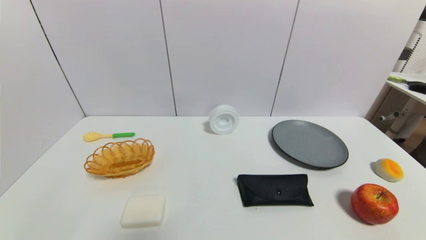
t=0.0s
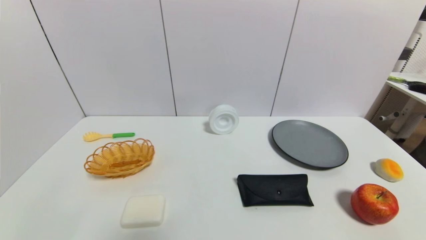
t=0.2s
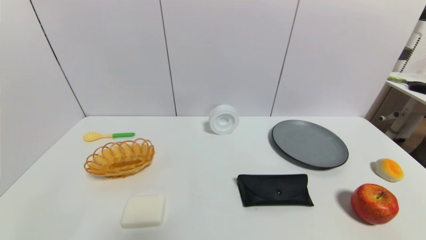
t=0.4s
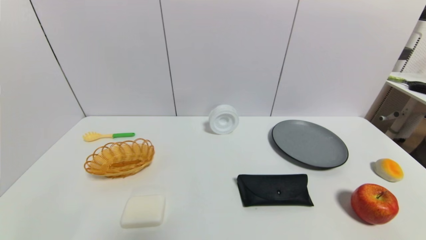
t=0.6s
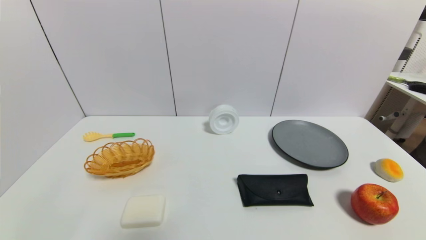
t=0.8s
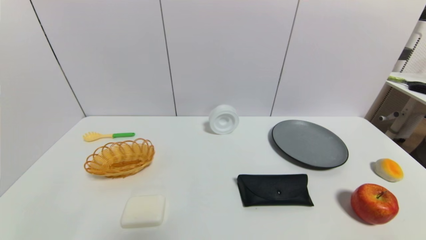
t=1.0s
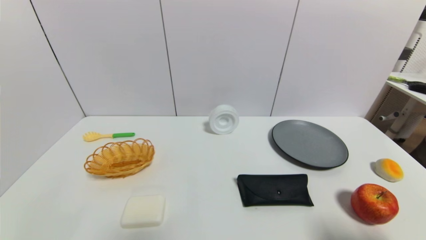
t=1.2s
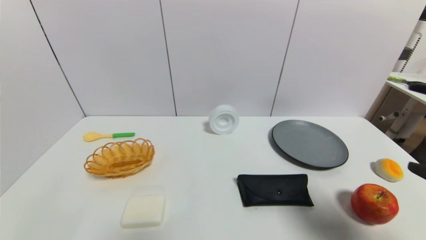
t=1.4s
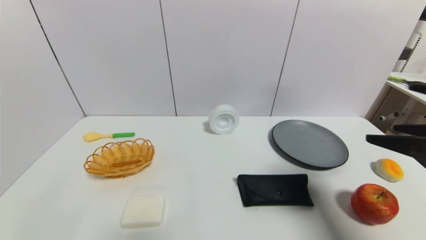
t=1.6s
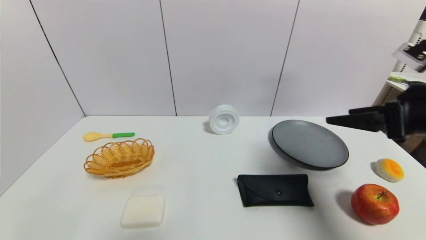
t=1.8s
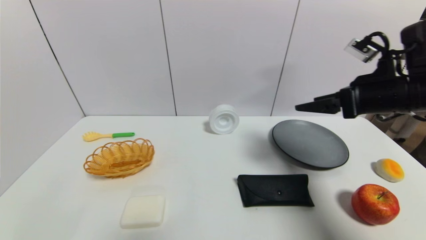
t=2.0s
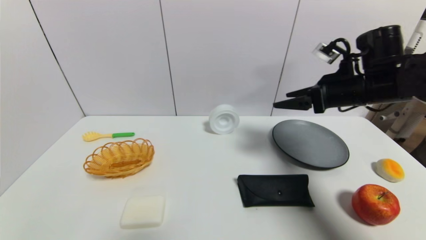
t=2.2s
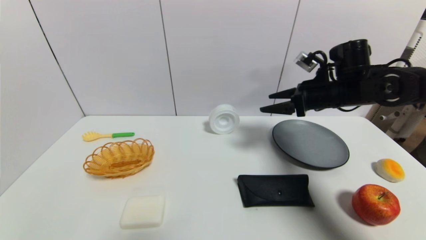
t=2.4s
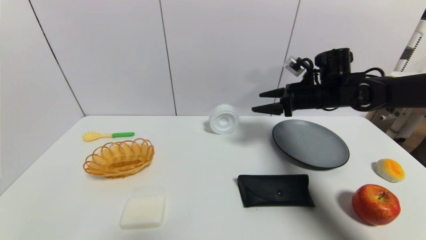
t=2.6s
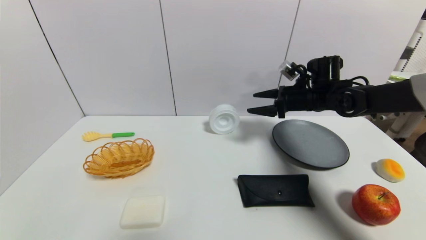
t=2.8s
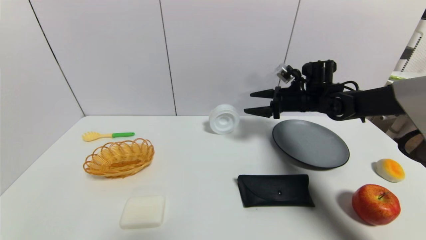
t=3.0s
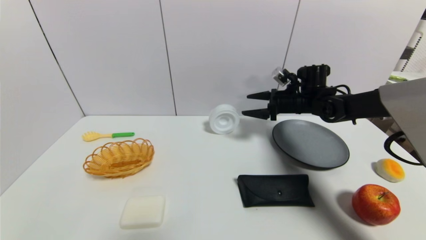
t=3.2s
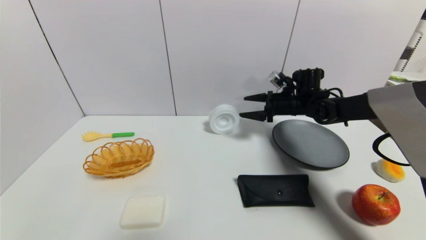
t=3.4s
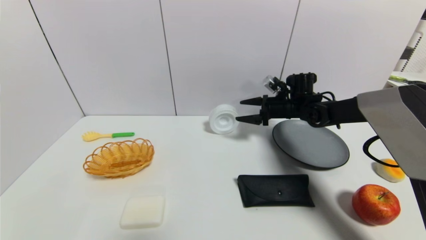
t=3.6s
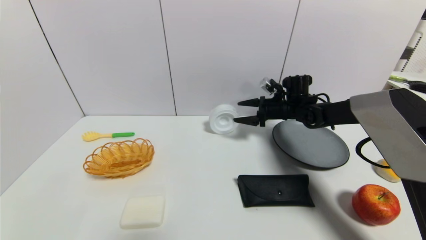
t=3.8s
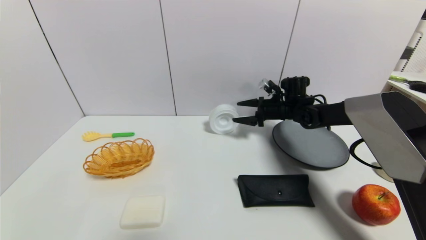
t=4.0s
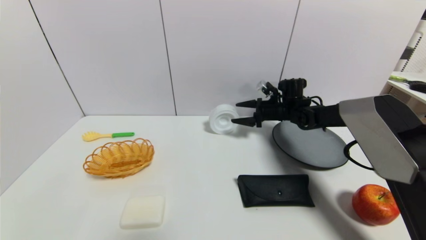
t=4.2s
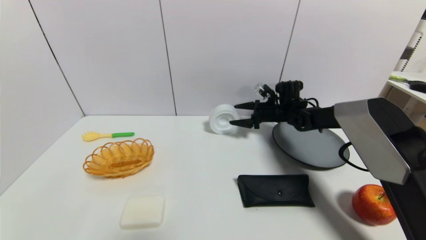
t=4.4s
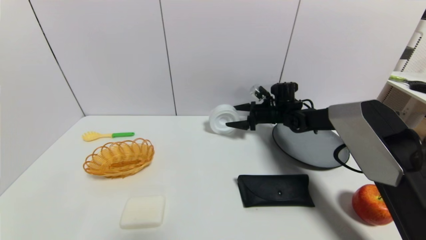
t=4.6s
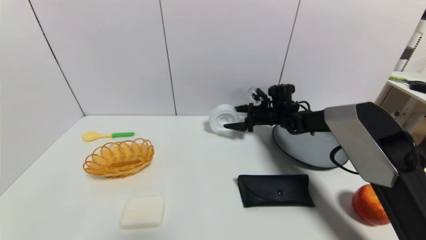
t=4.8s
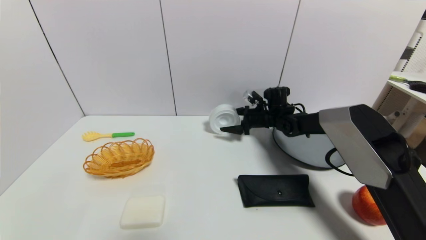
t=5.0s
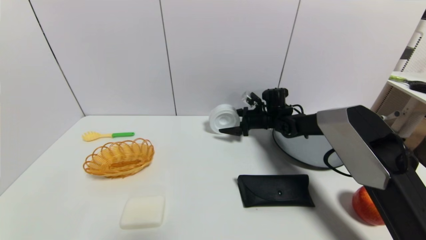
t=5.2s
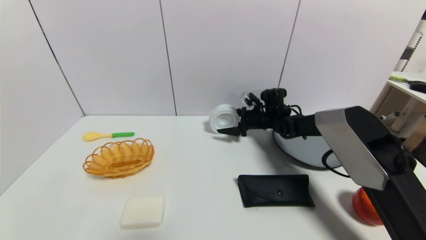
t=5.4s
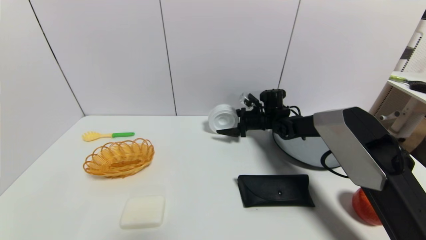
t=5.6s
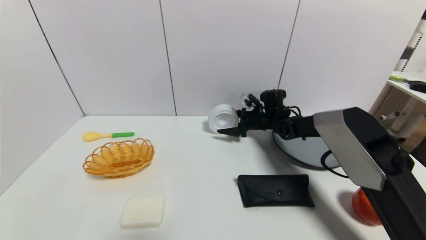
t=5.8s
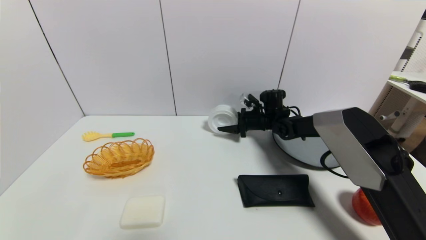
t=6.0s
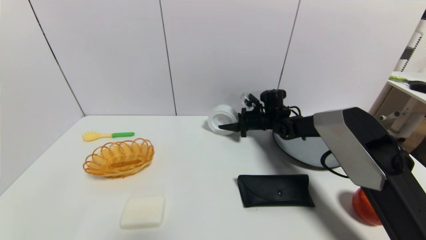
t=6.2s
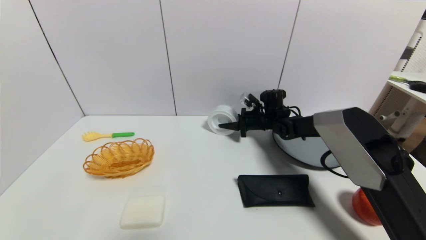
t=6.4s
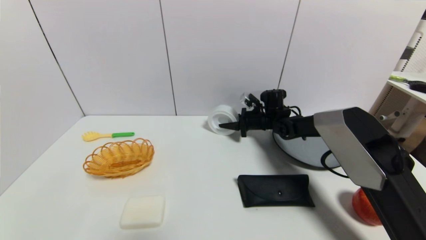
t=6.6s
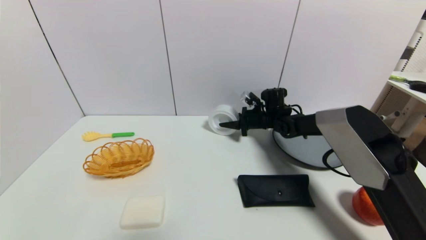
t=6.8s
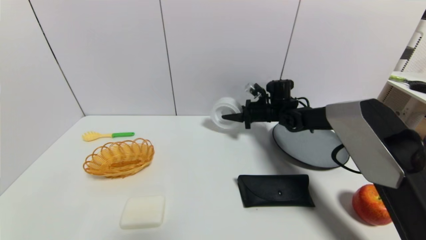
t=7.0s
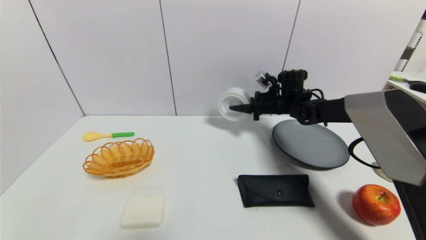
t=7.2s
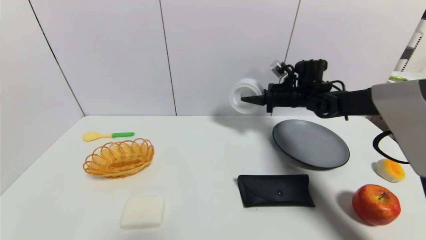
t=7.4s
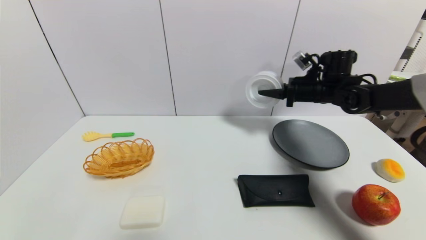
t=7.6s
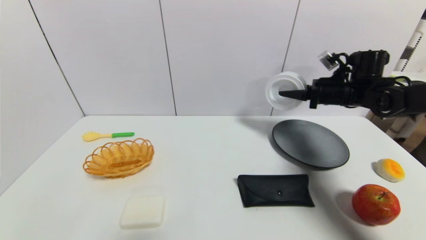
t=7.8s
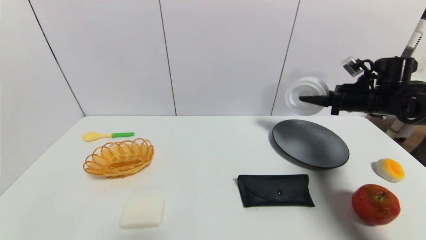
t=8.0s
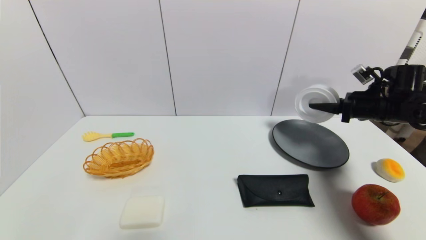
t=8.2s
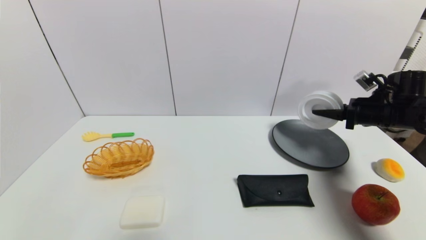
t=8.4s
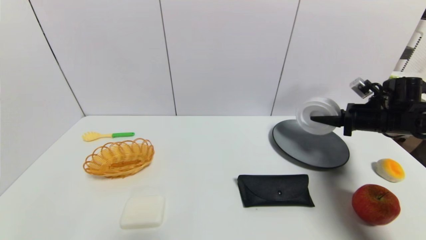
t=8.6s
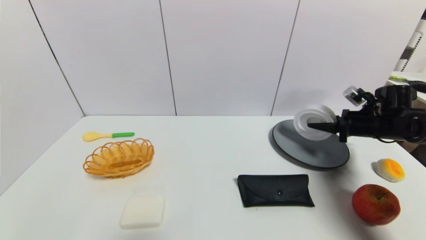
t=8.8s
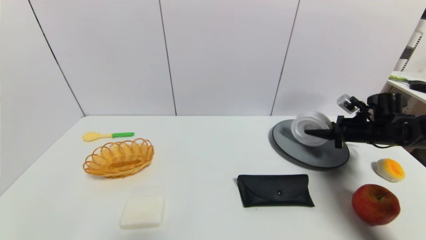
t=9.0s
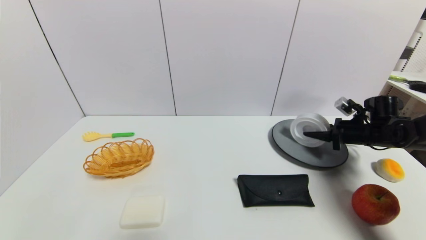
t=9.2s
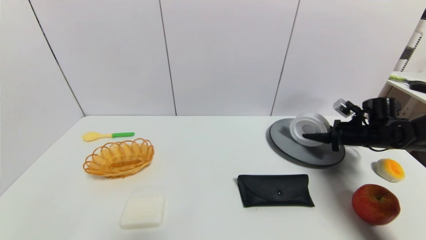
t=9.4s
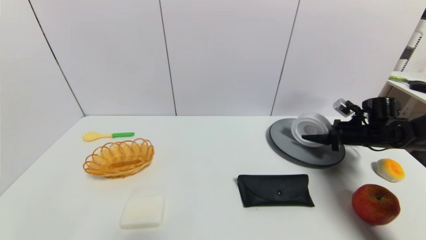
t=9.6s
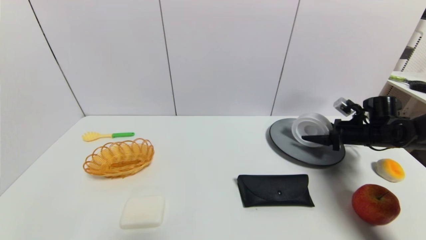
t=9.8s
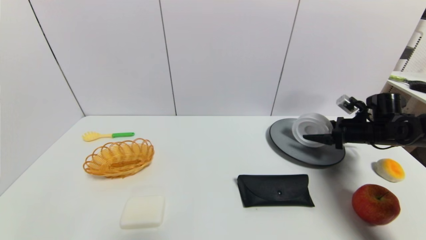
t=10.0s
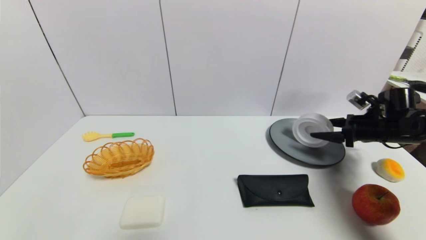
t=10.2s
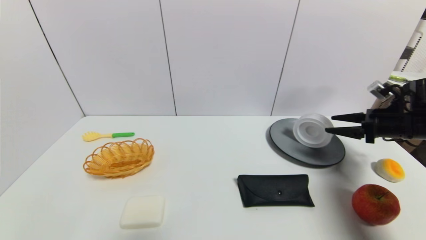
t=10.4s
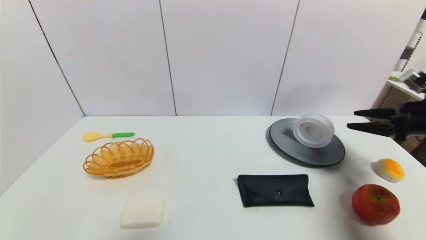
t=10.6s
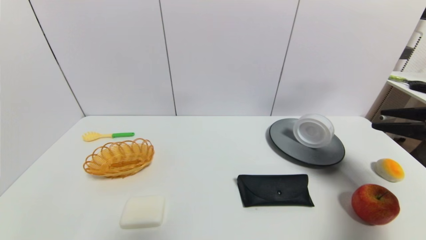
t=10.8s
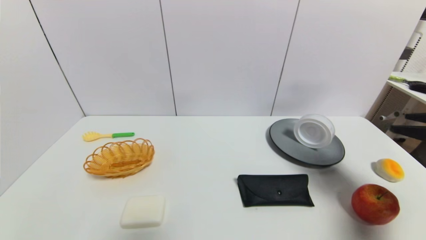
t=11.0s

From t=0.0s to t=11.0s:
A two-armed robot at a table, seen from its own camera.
Task of the whole recording: use a gripper to pick the target object and place on the gray plate.
Step, from t=0.0s to t=6.6s: Grasp the tape with the right gripper.
Step, from t=6.8s to t=10.0s: Place the tape on the gray plate with the right gripper.
From t=0.0s to t=1.6s: The right gripper moves upward and forward, some 25 cm.
From t=1.6s to t=3.2s: The right gripper goes roughly 30 cm forward.
From t=3.2s to t=4.8s: The right gripper moves downward and to the left, approximately 10 cm.
From t=4.8s to t=6.2s: The right gripper closes.
From t=6.2s to t=7.8s: The right gripper heads to the right, upward and backward, covering roughly 20 cm.
From t=7.8s to t=9.4s: The right gripper goes roughly 15 cm downward and to the right.
From t=9.4s to t=11.0s: The right gripper heads backward and upward, covering about 25 cm, and opens.

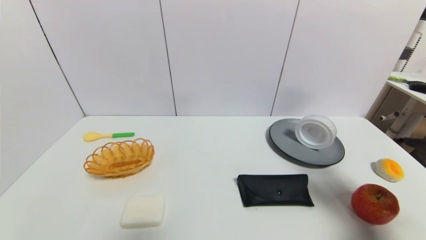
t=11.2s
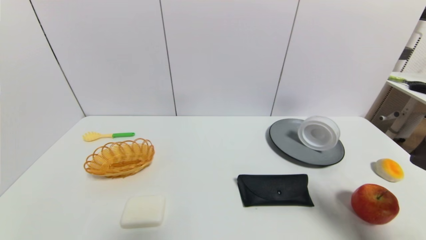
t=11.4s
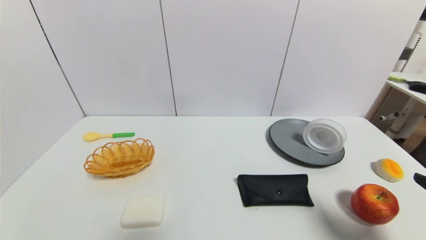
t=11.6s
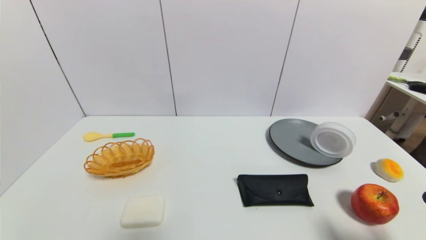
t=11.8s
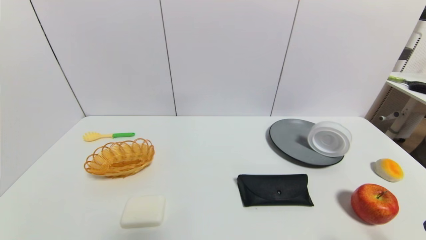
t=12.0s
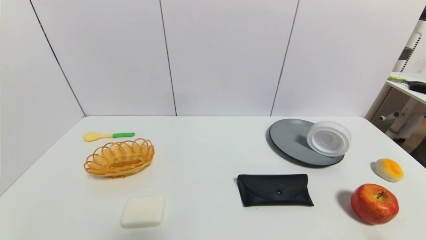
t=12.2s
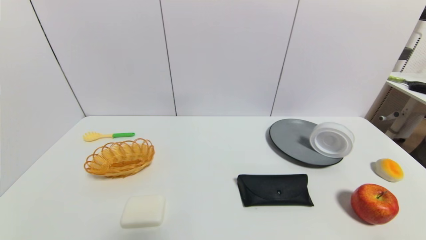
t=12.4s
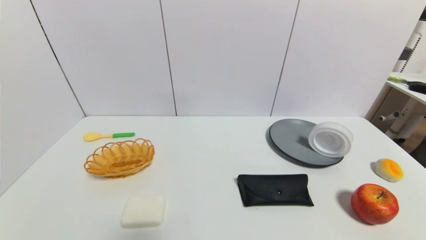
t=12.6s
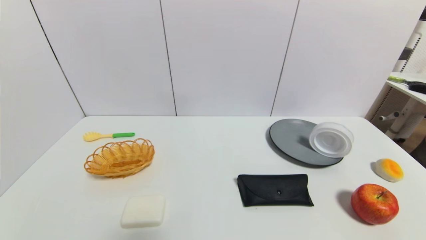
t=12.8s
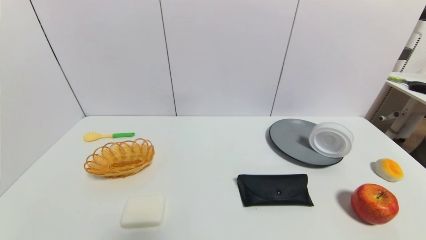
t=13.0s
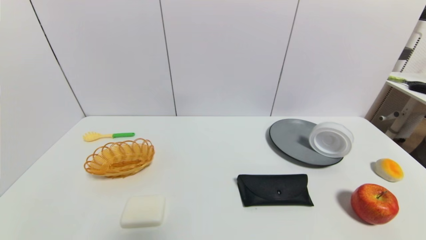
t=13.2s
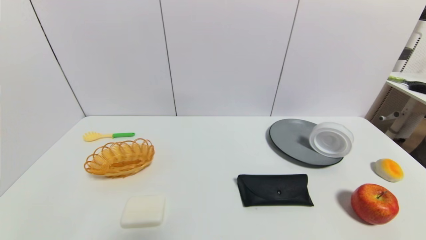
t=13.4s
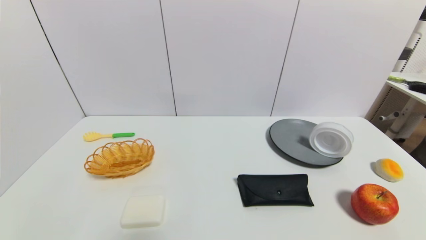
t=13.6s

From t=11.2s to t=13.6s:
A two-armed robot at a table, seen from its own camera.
Task of the whole recording: use a gripper to pick the target object and place on the gray plate.
From t=11.2s to t=12.4s: The right gripper shifts approximately 20 cm downward and backward.
